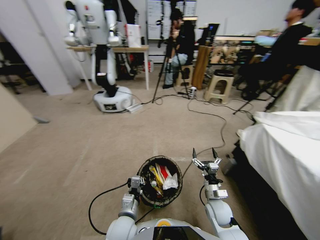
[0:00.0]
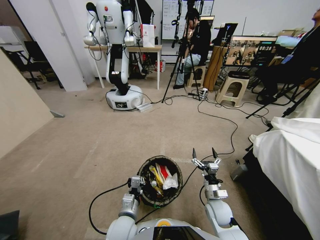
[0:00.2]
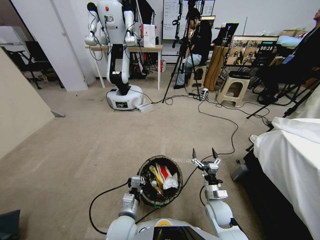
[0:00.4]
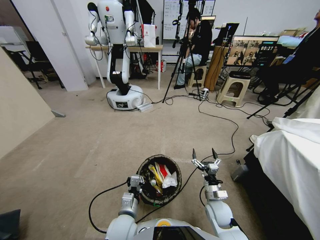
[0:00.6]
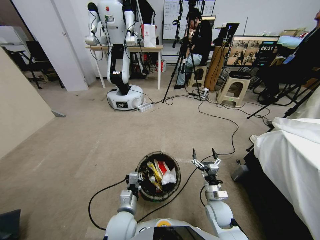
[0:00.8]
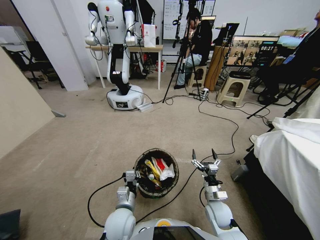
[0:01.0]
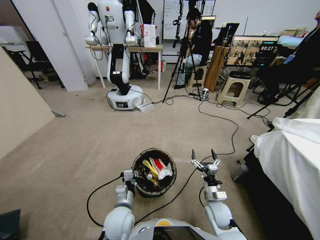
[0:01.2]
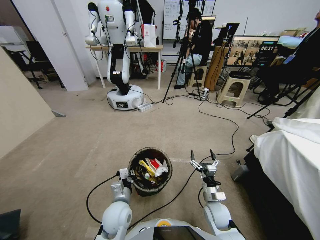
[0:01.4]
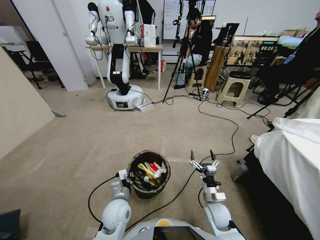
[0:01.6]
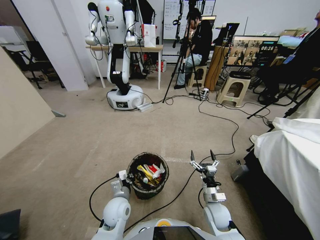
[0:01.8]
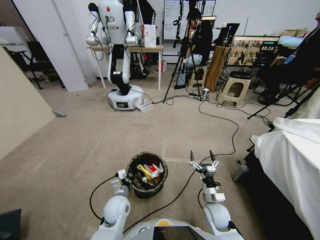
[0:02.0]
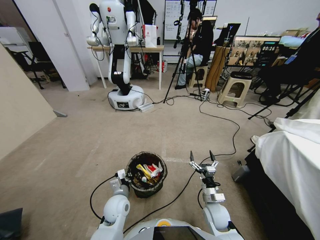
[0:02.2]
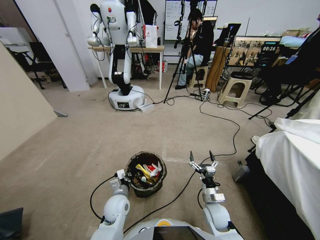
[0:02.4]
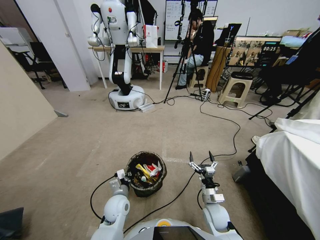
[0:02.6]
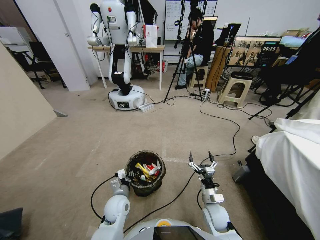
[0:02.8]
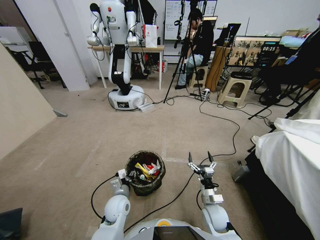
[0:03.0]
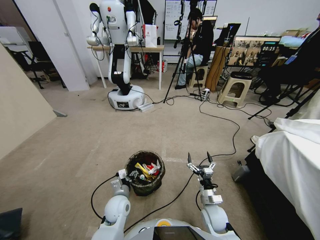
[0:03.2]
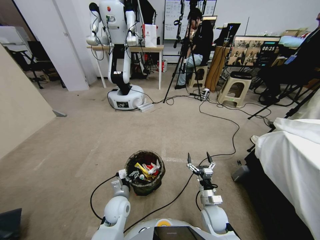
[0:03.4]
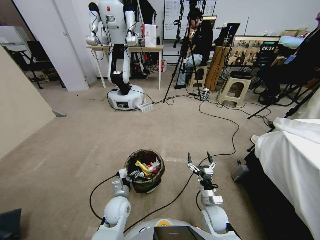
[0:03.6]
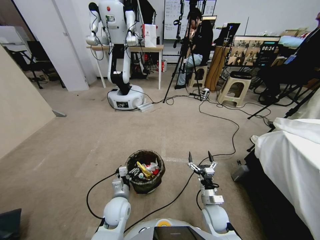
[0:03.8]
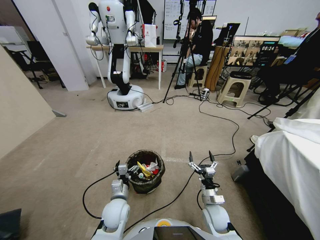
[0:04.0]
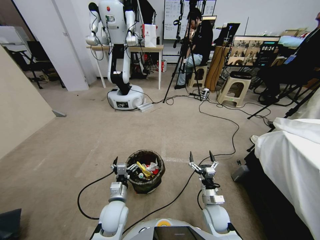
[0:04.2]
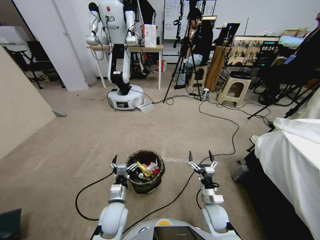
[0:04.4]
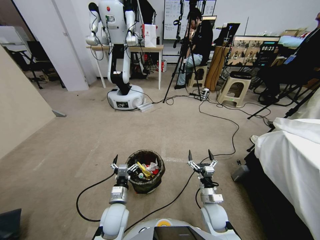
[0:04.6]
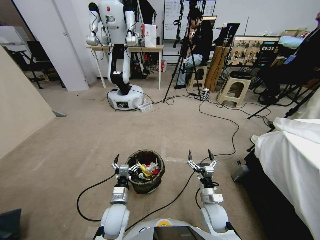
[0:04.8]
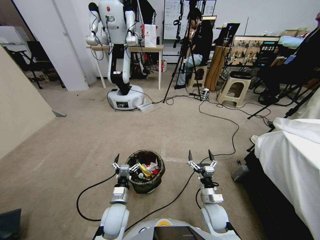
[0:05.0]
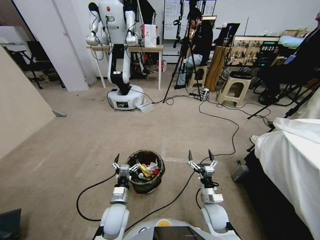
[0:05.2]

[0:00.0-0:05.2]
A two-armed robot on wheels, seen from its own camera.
Task of the whole recording: Pick up the trash bin, then pick up the garbage from the floor and place it into the trash bin.
0:00.0 to 0:01.8: The left gripper shifts some 5 cm forward.
0:01.8 to 0:03.4: The left gripper opens its fingers.

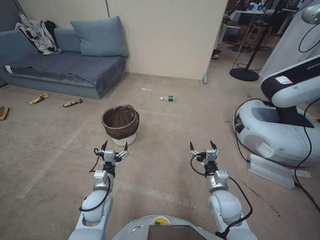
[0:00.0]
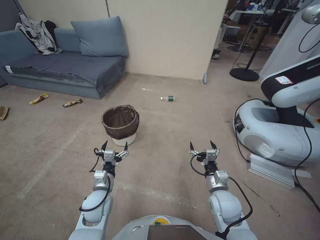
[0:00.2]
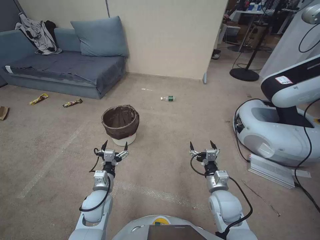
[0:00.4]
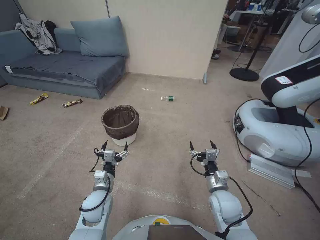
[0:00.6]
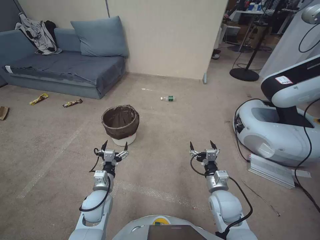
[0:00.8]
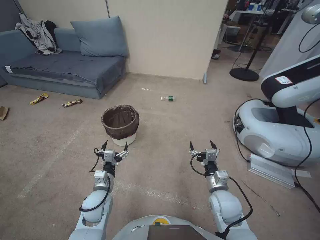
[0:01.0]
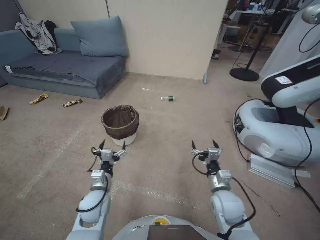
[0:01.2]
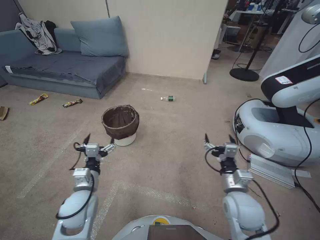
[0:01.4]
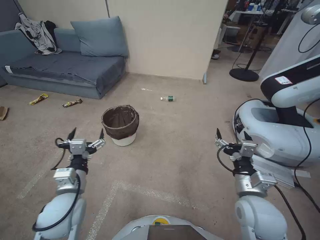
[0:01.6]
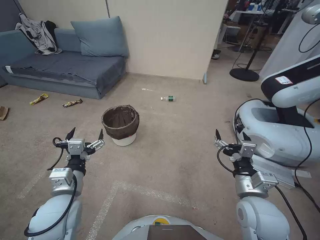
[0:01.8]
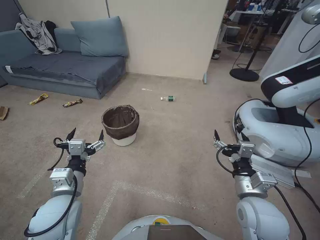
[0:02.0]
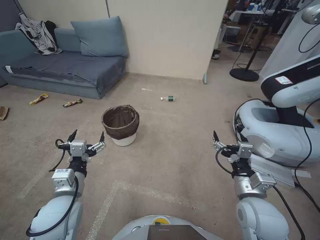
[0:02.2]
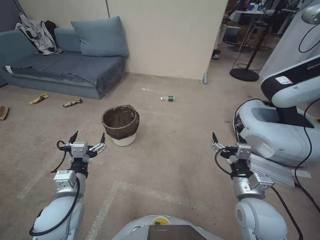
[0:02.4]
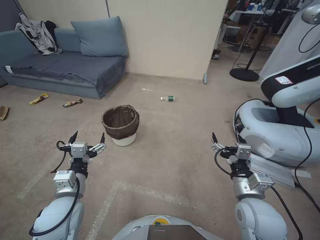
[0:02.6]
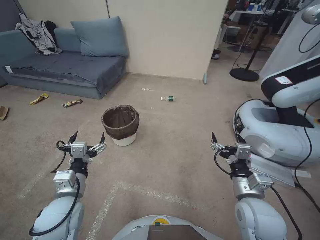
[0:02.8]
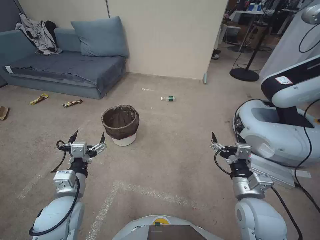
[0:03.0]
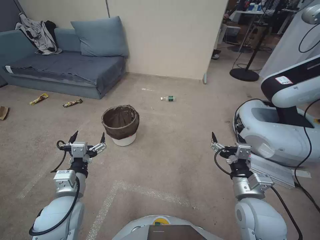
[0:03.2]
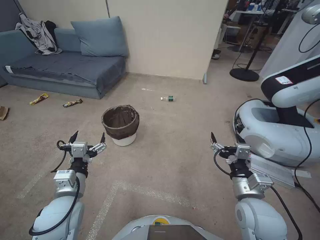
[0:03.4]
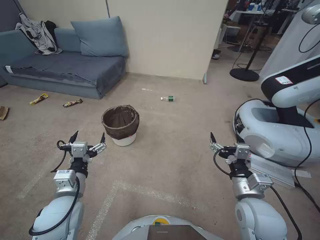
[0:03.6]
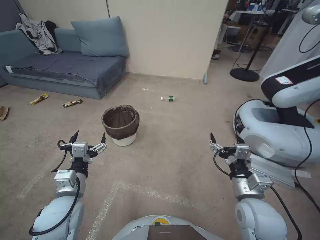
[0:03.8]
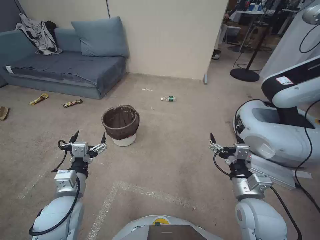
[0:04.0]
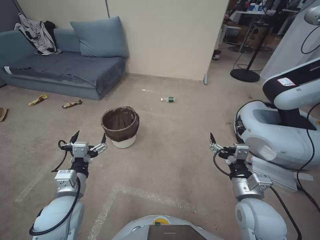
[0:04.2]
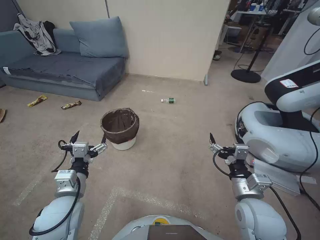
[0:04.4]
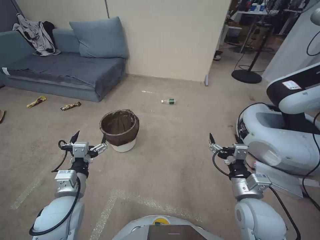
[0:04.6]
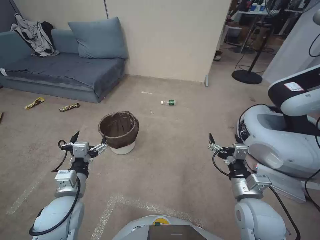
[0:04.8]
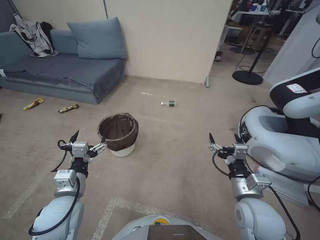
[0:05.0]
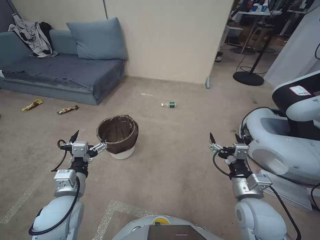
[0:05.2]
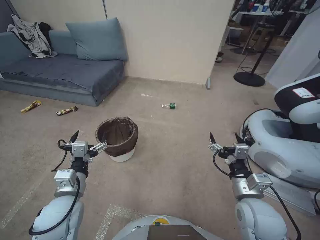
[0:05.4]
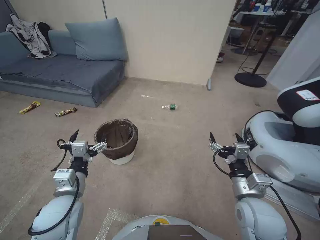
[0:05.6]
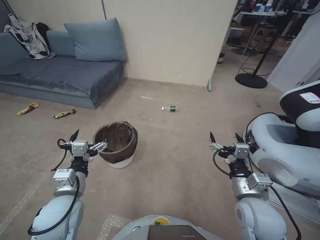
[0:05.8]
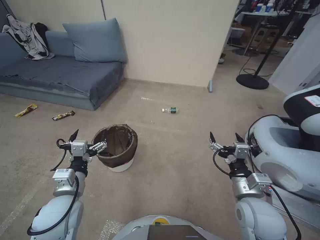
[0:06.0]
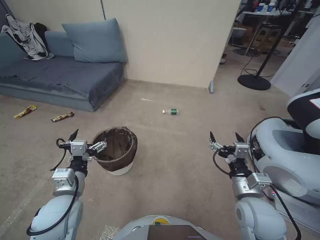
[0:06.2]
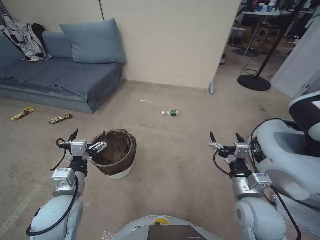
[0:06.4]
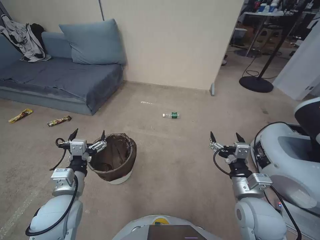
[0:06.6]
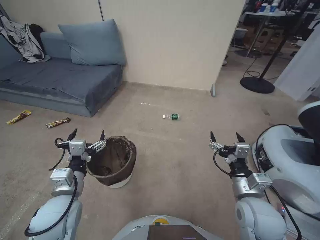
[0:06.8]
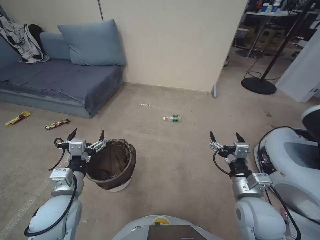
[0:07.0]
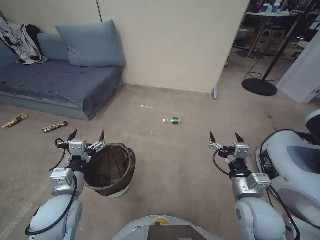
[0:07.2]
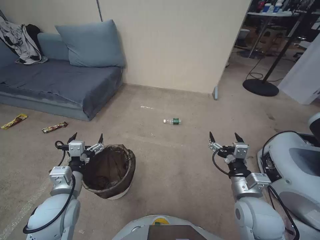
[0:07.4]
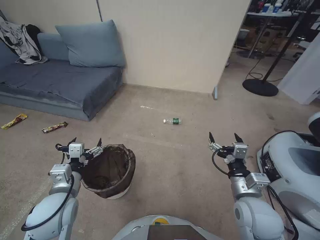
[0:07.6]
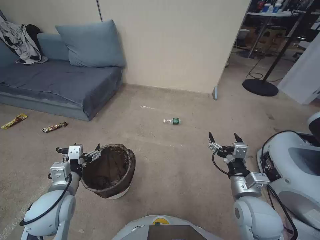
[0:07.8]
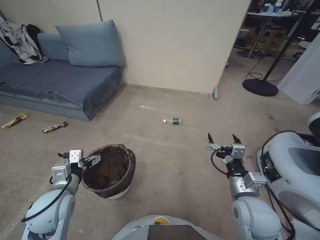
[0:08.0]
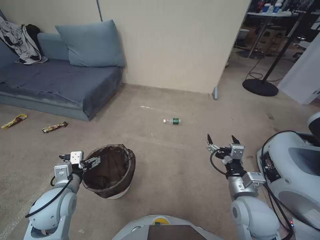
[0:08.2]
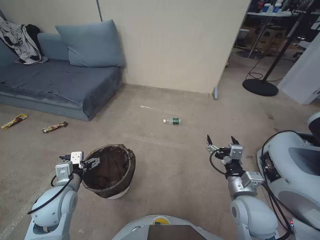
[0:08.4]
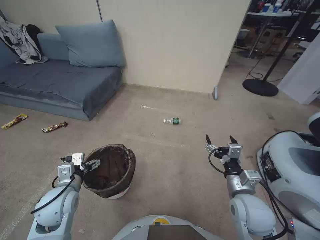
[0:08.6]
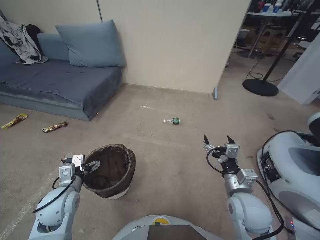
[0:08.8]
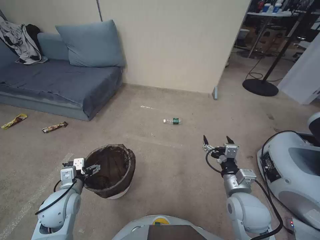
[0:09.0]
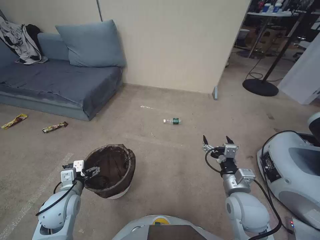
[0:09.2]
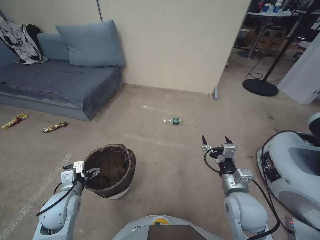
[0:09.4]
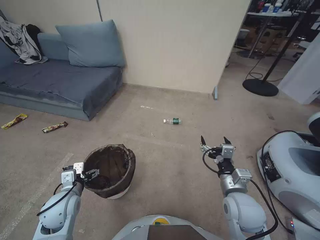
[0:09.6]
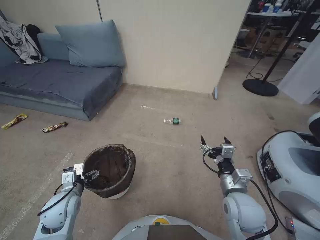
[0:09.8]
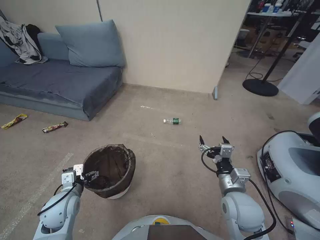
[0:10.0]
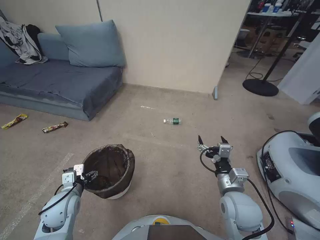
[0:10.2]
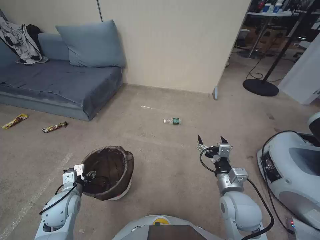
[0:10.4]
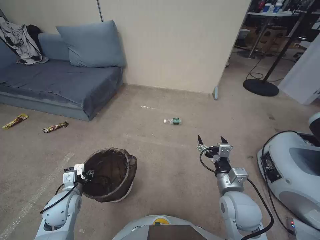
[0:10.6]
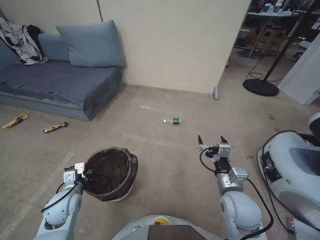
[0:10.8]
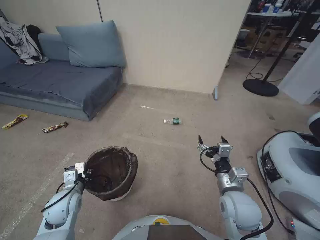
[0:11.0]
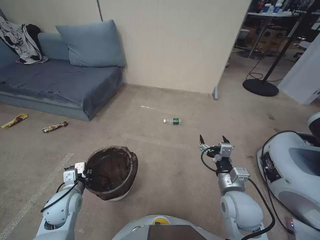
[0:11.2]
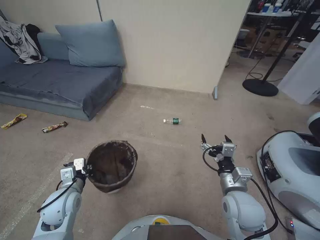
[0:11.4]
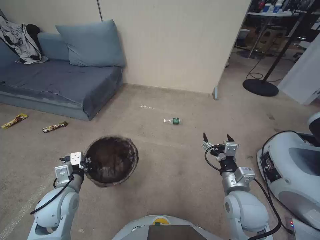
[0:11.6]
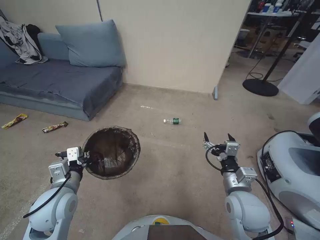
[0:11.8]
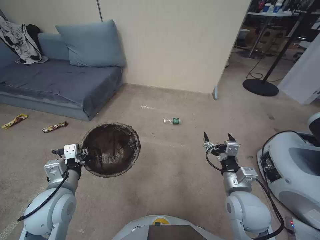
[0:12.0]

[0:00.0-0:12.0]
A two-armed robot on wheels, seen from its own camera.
Task of the whole recording: Pick up the trash bin, then pick up the garbage from the floor and place it into the trash bin.
0:01.6 to 0:03.0: The grippers stay close to where they were, moving slightly.
0:03.0 to 0:04.4: Both grippers stay put.
0:07.6 to 0:09.0: The left gripper heads downward, covering approximately 5 cm.
0:09.0 to 0:10.4: The grippers stay close to where they were, moving slightly.
0:10.4 to 0:12.0: The left gripper shifts about 10 cm upward, and closes up.

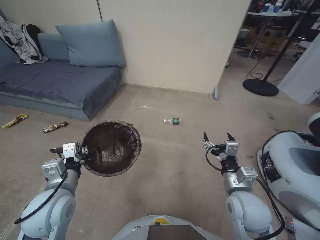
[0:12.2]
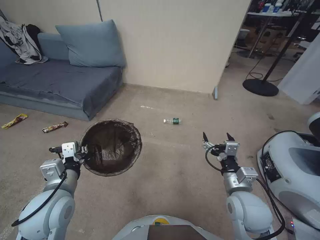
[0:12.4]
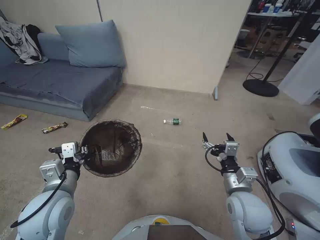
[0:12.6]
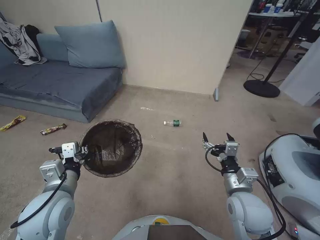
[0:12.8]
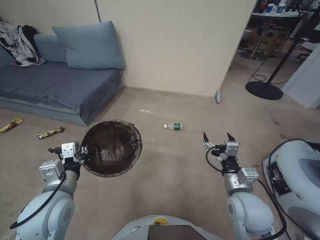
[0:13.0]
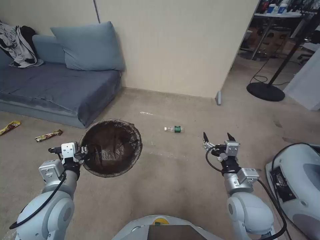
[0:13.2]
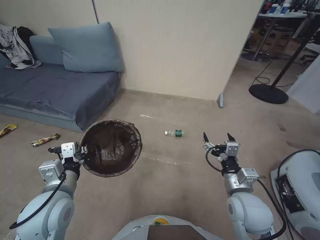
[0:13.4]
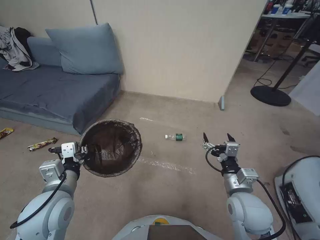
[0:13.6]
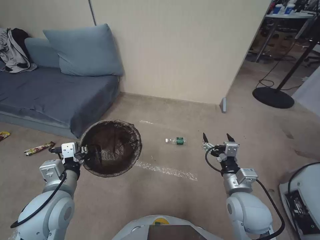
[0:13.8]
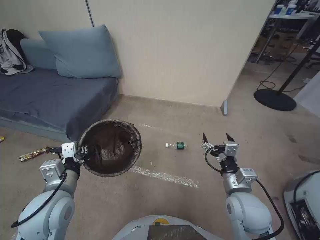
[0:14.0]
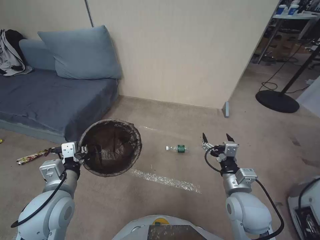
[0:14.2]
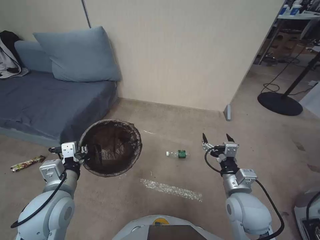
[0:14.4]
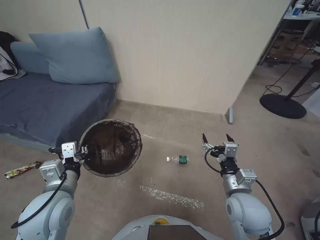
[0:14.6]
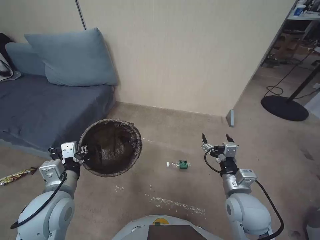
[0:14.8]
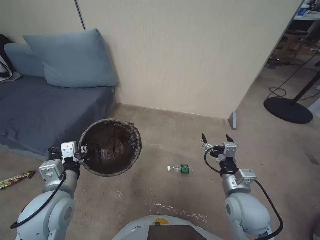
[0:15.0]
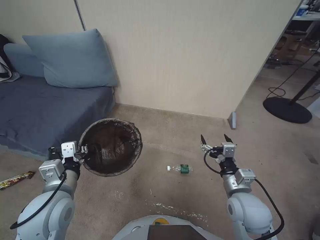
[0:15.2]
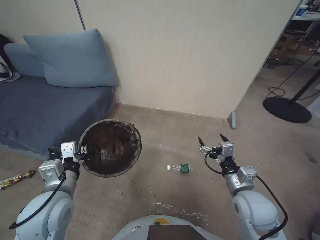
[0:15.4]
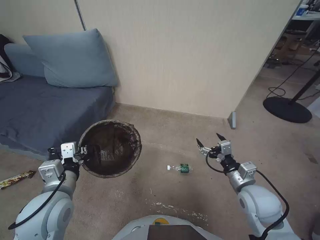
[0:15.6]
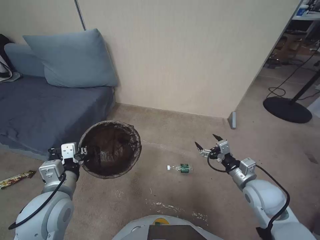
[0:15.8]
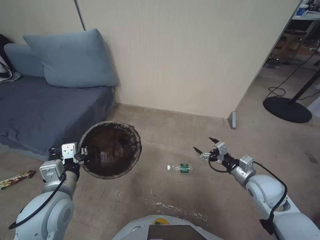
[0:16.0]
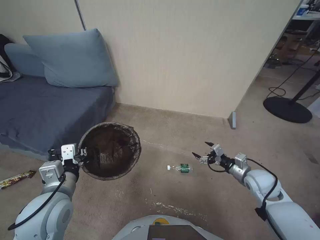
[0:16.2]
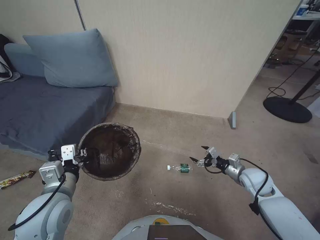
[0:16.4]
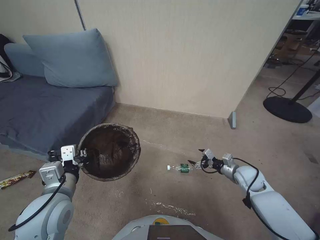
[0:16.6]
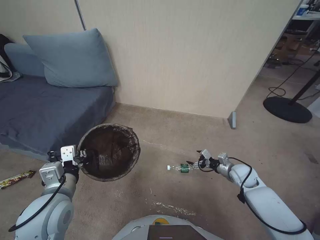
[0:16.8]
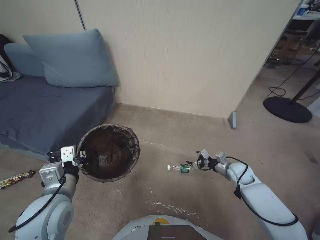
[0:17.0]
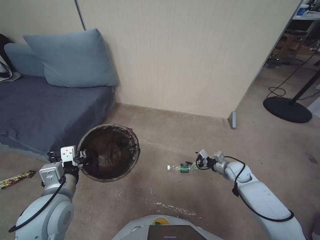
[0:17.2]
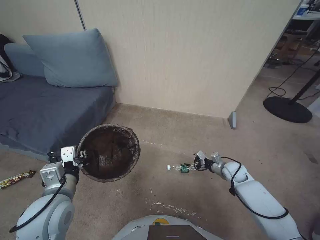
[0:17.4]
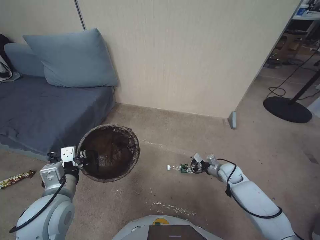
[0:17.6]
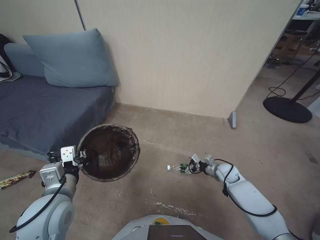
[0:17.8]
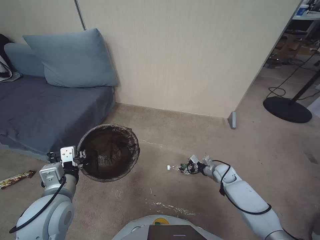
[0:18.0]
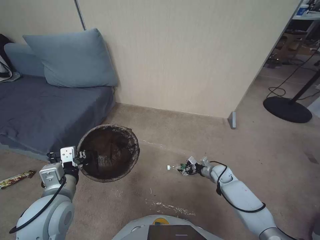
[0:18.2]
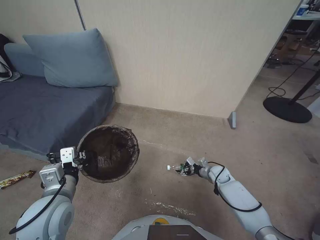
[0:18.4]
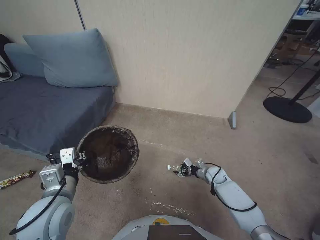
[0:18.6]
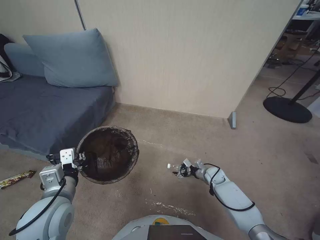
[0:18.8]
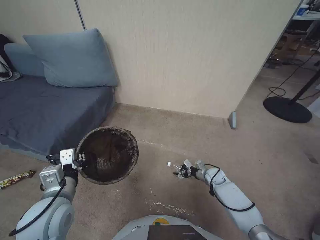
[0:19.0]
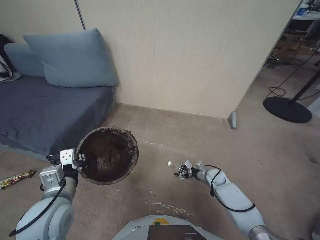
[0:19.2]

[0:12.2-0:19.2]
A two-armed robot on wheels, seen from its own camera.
Task of the whole recording: Pick up the trash bin, then pick up the garbage from the floor and place it into the trash bin.
0:12.2 to 0:13.6: The grippers make only small movements.
0:15.0 to 0:16.4: The right gripper is displaced to the right, forward and downward by about 20 cm.
0:16.4 to 0:17.8: The right gripper moves downward and forward, about 15 cm.
0:17.8 to 0:19.2: The right gripper heads downward, covering roughly 10 cm.
